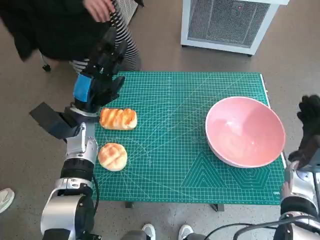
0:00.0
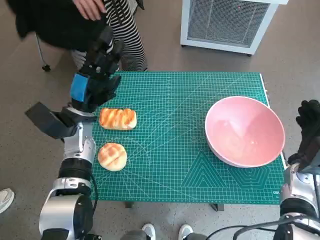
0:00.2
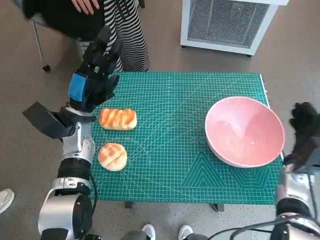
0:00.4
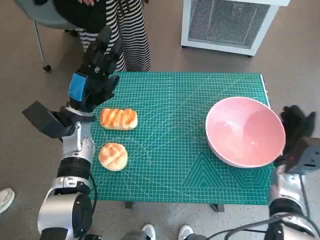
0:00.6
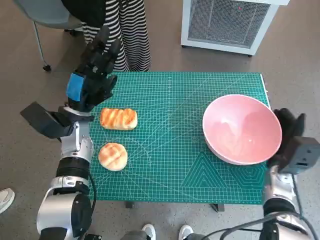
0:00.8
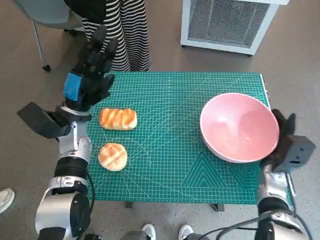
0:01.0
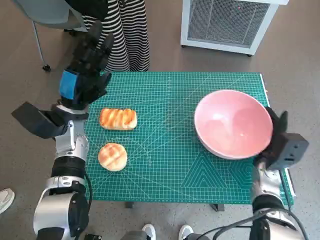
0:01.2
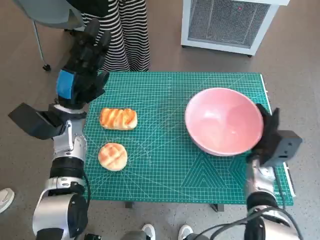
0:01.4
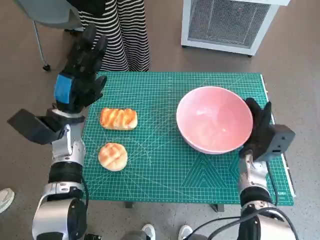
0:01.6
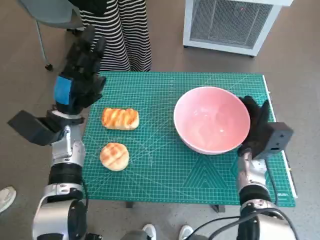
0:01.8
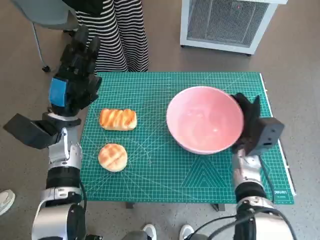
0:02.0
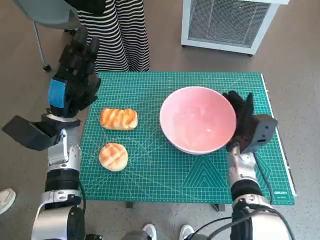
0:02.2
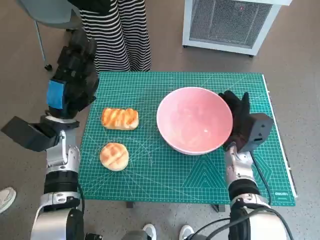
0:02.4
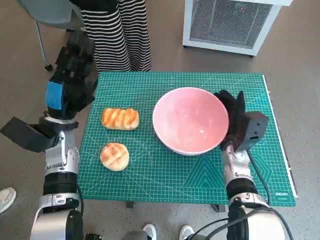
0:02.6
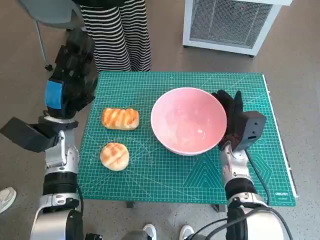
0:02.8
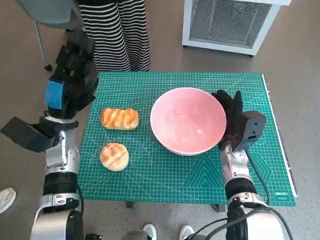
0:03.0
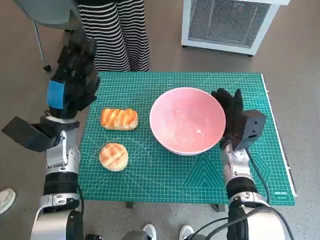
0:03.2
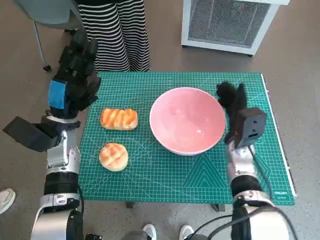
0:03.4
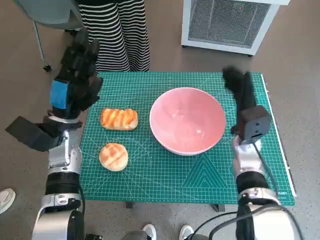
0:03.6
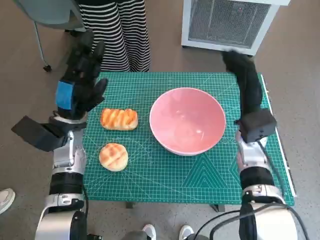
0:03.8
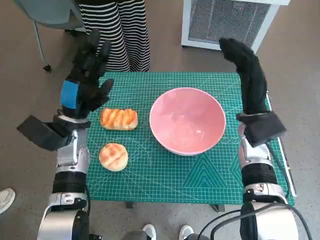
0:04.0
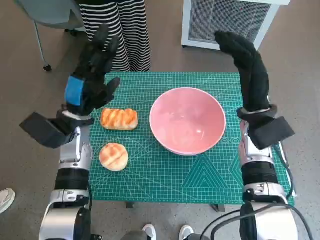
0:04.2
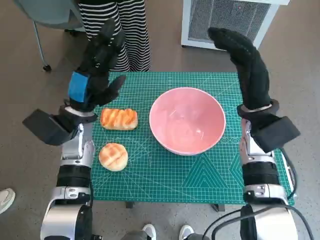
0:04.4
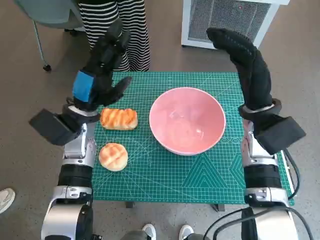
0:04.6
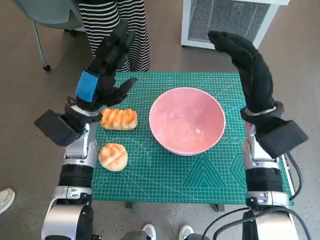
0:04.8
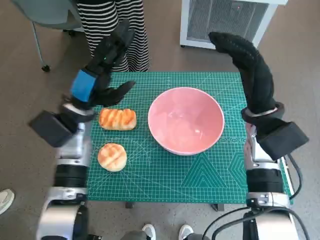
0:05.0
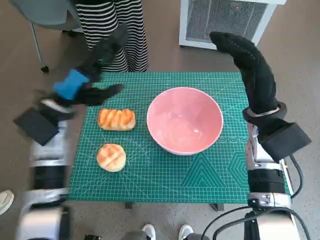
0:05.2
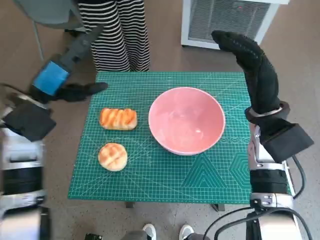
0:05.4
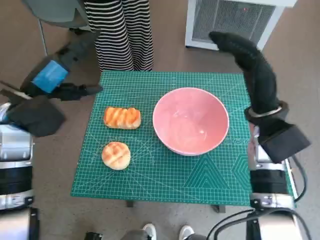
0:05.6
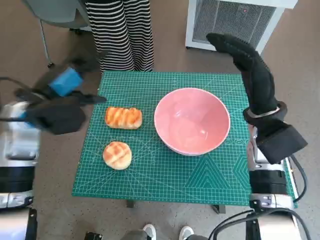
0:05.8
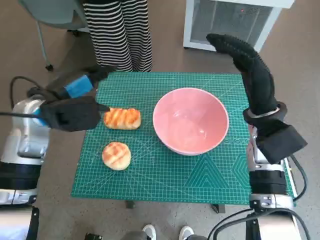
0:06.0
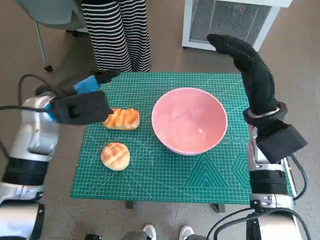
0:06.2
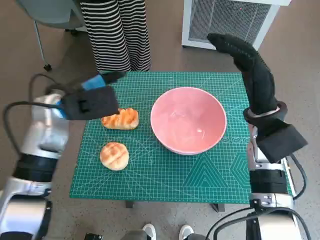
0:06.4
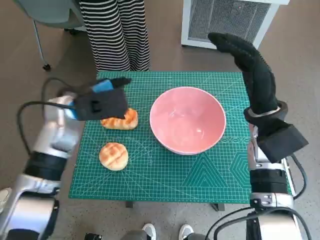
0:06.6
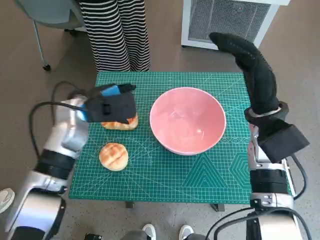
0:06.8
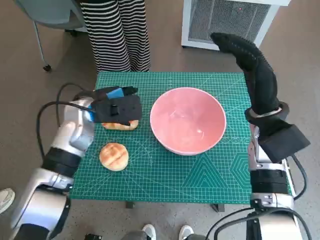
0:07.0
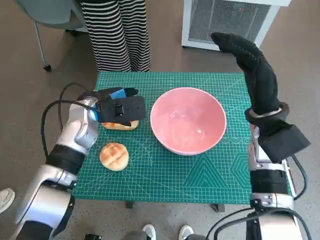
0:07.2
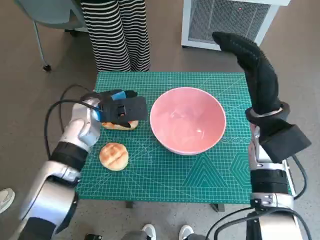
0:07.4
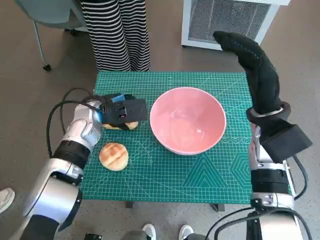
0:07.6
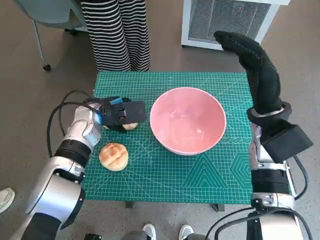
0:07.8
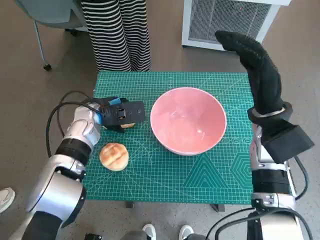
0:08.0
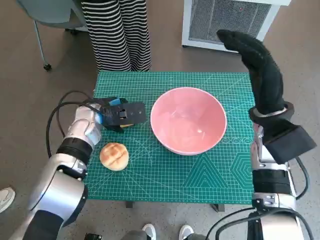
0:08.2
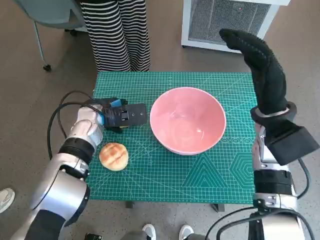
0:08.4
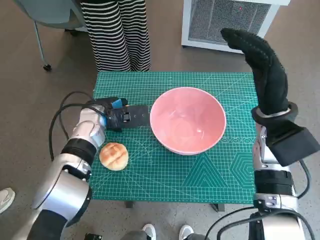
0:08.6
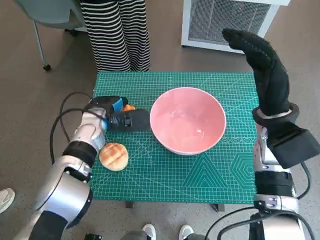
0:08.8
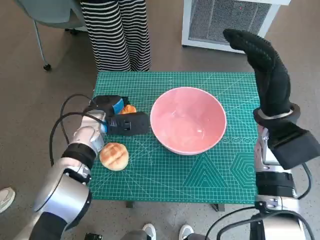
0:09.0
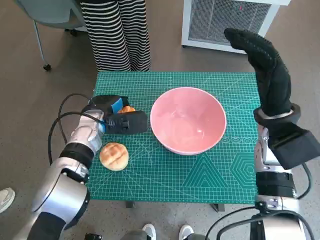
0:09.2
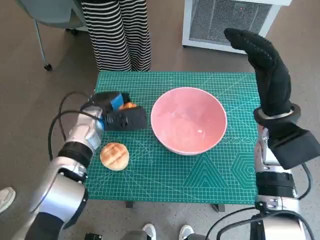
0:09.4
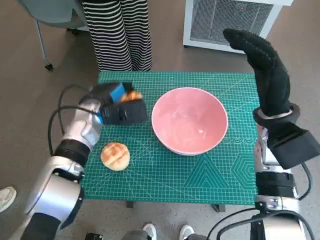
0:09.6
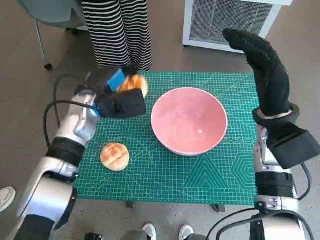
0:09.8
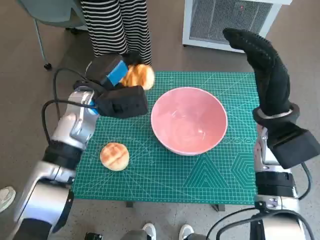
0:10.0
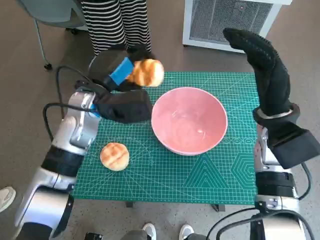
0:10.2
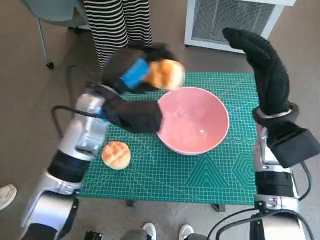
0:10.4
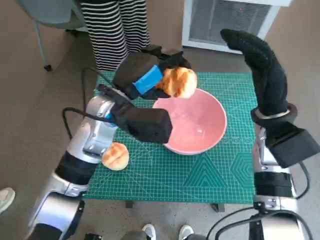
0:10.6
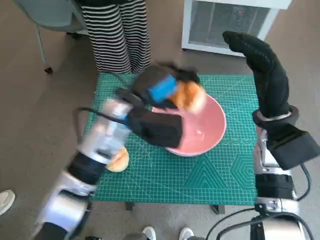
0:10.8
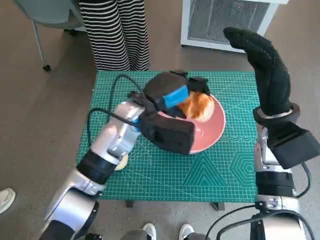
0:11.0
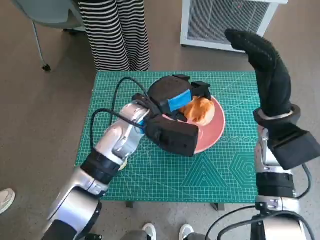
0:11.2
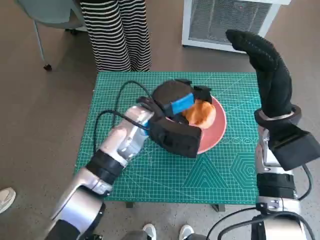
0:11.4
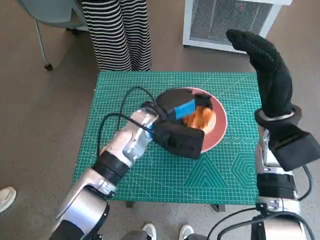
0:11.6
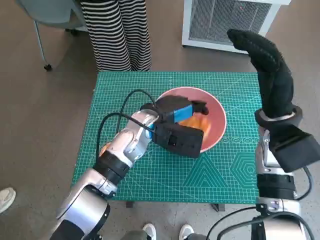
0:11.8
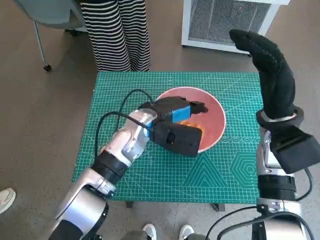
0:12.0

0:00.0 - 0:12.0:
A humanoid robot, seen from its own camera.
Task of the whole recording: Push the bowl to the center of the table and put the bread into the bowl.
Step, 0:00.0 - 0:03.4: Move the pink bowl to the center of table with right hand.
Step, 0:03.6 - 0:08.8: Grasp the long bread with left hand.
0:00.0 - 0:01.6: The right hand shifts approximately 10 cm to the left.
0:01.6 - 0:03.0: The right hand heads to the left, covering approximately 5 cm.
0:03.0 - 0:04.4: The right hand moves upward, approximately 10 cm.
0:04.4 - 0:06.0: The left hand is displaced upward by about 5 cm.
0:06.0 - 0:07.6: The left hand goes approximately 10 cm downward and to the right.
0:07.6 - 0:09.0: The hands move only a little.
0:09.0 - 0:10.4: The left hand travels upward by some 10 cm.
0:10.4 - 0:12.0: The left hand heads to the right and downward, covering approximately 10 cm.

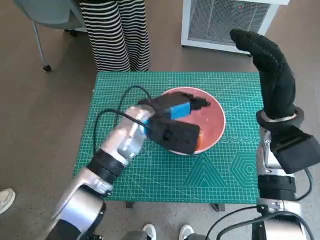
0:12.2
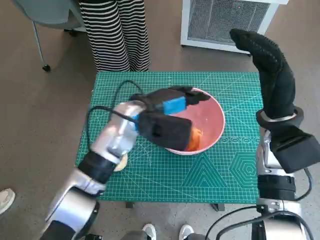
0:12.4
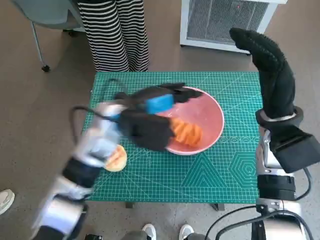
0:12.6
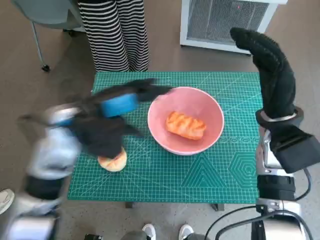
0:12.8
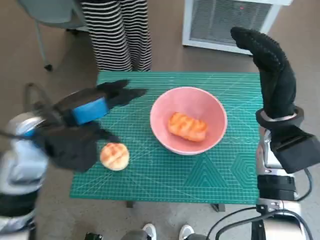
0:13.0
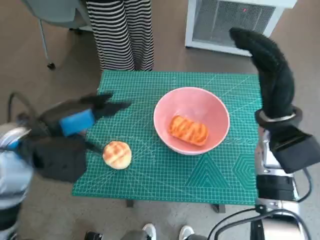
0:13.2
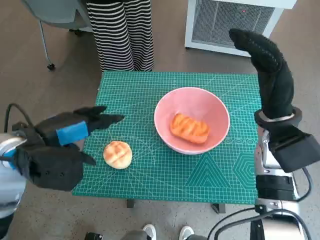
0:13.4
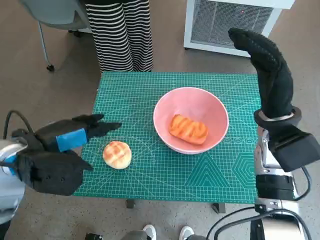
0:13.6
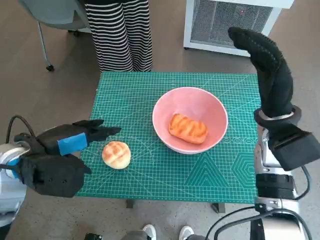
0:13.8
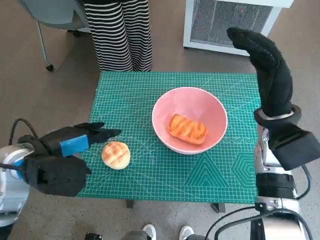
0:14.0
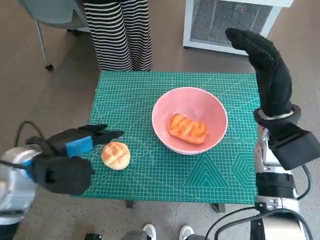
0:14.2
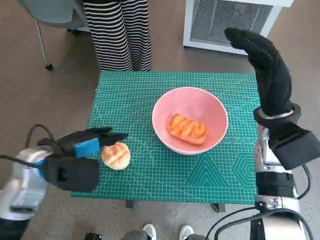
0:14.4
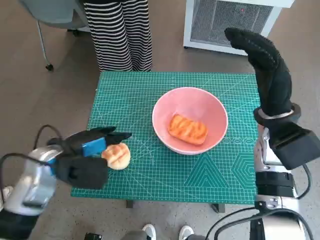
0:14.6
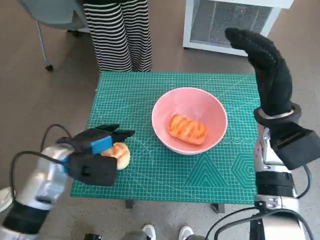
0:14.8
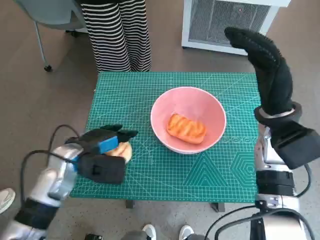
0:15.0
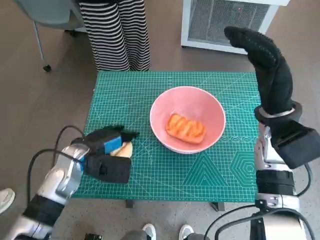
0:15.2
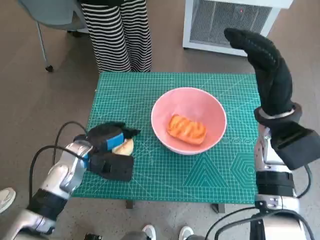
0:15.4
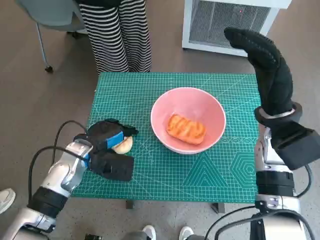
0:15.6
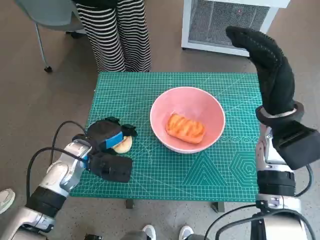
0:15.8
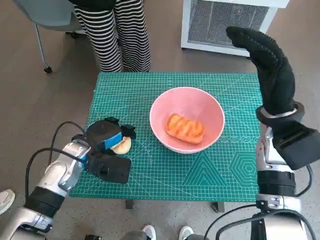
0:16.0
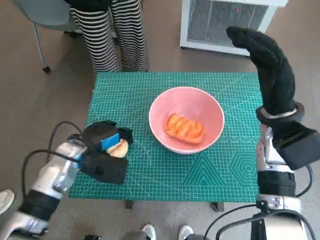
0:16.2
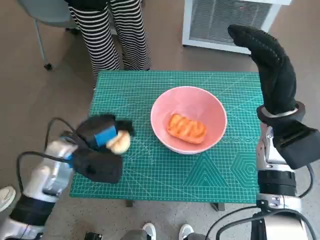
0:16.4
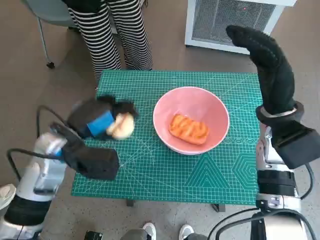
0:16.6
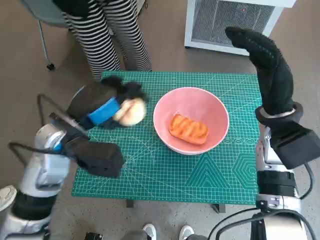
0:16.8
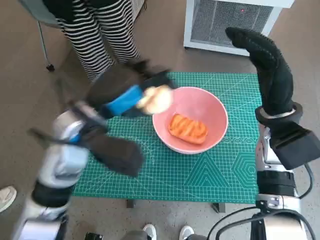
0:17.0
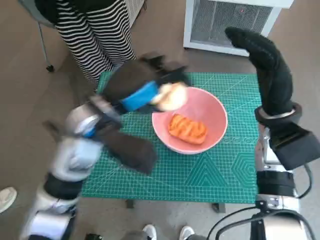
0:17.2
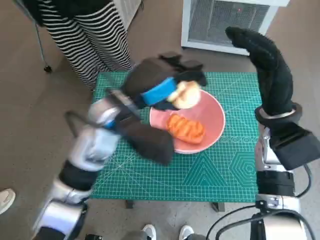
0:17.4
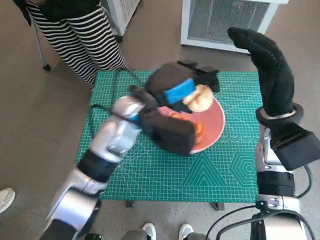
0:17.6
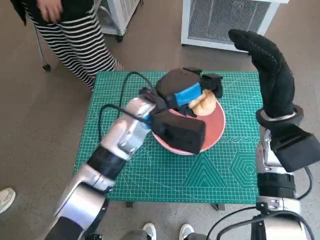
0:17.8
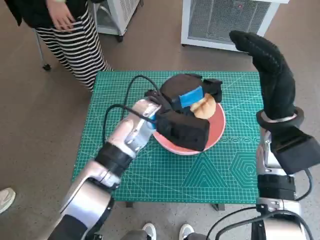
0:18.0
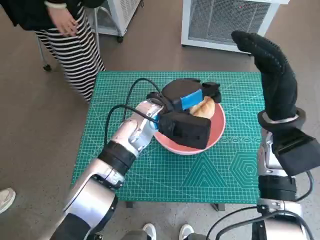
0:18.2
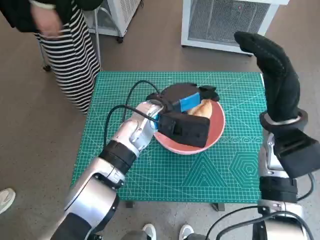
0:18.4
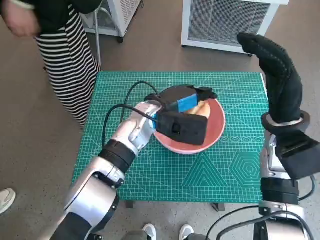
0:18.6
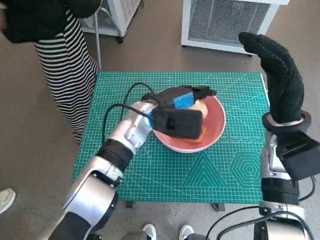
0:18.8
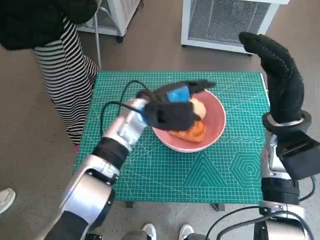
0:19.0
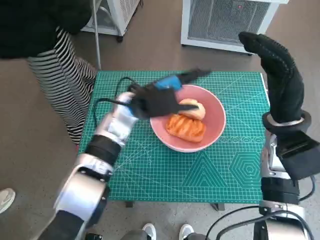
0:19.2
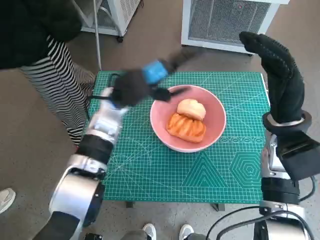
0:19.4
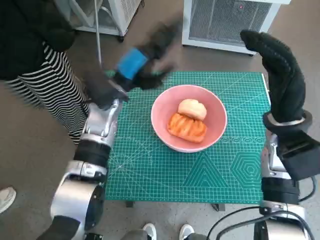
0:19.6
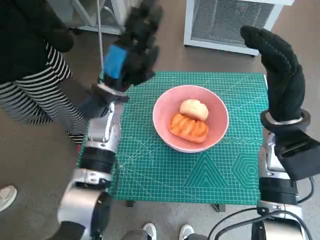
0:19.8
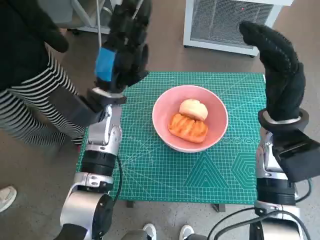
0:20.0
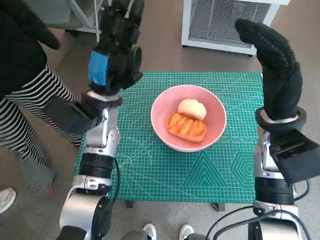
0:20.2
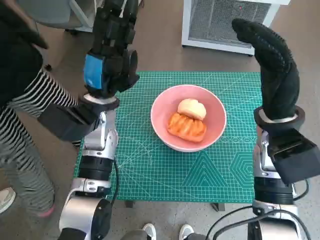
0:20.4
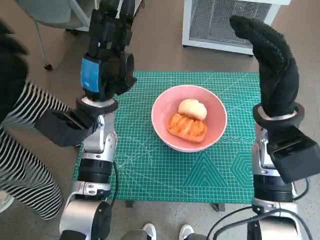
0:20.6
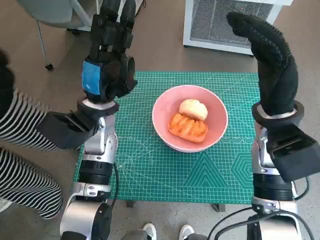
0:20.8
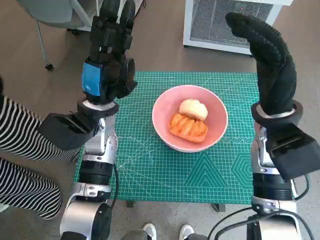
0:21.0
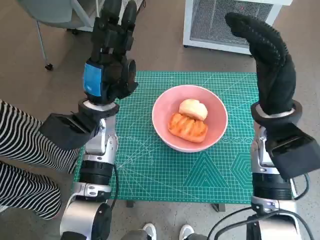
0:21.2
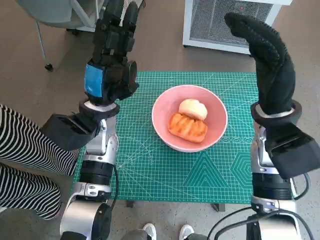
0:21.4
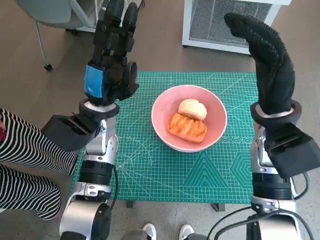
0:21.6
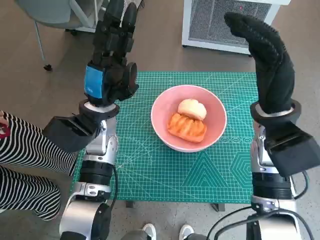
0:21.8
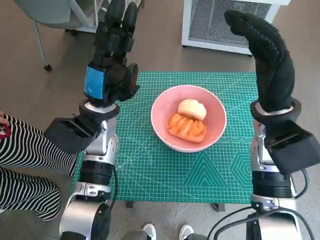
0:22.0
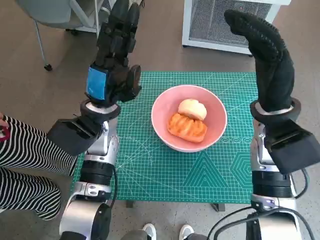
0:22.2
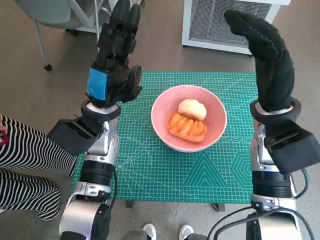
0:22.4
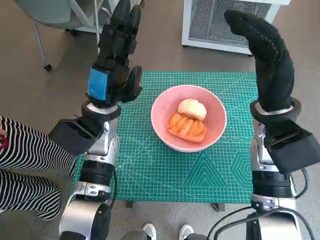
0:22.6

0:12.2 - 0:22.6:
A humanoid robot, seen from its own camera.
Task of the whole recording: Push the bowl to the center of the table and put the bread into the bowl.
Step, 0:12.4 - 0:15.4: Grasp the round bread with left hand.
Step, 0:15.6 - 0:19.0: Place the round bread in pink bowl with left hand.
0:12.2 - 0:13.6: The left hand travels to the left and backward by approximately 20 cm.
0:13.6 - 0:15.2: The left hand travels downward by some 10 cm.
0:15.2 - 0:16.6: The left hand moves upward, about 10 cm.
0:16.6 - 0:18.2: The left hand goes approximately 20 cm to the right and forward.
0:18.2 - 0:19.6: The left hand travels to the left by roughly 10 cm.
0:21.2 - 0:22.6: Neither hand changes place.
